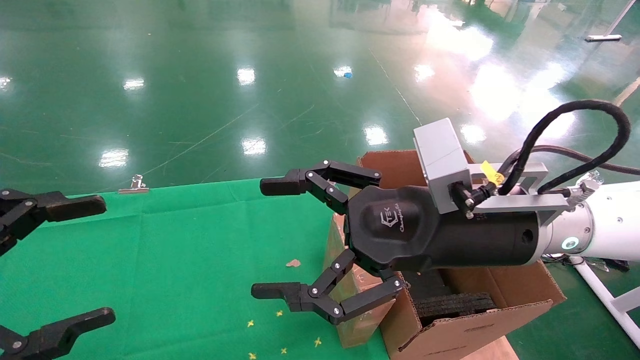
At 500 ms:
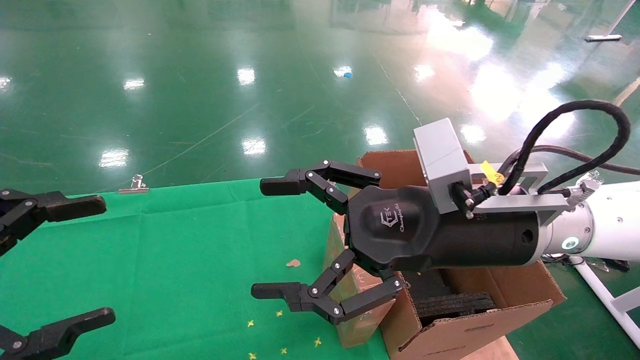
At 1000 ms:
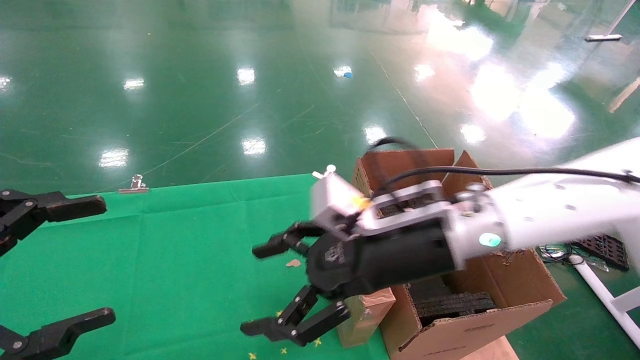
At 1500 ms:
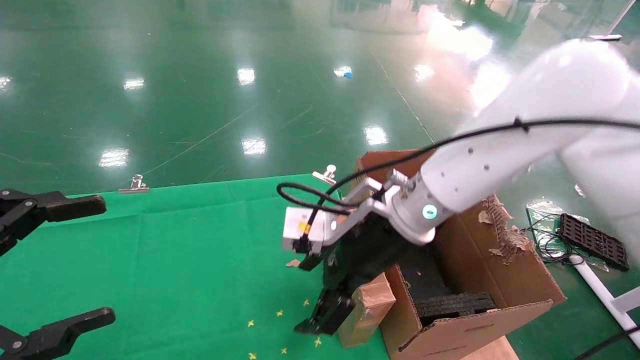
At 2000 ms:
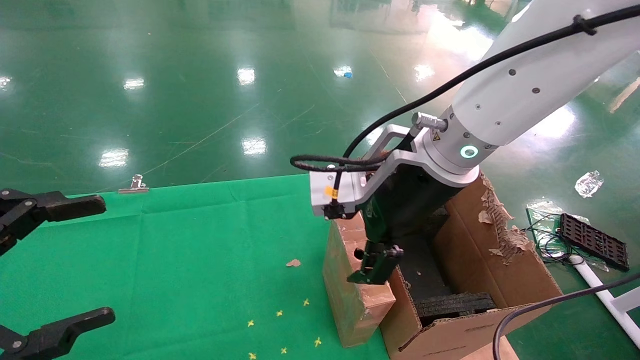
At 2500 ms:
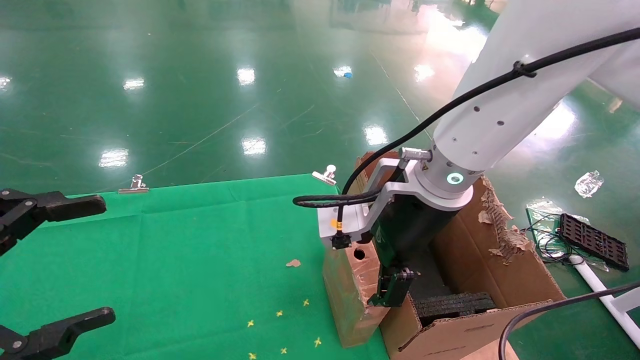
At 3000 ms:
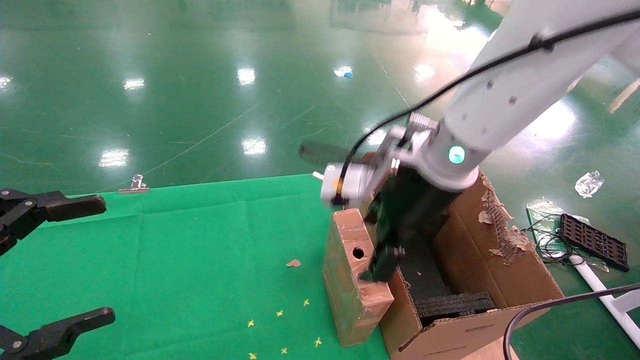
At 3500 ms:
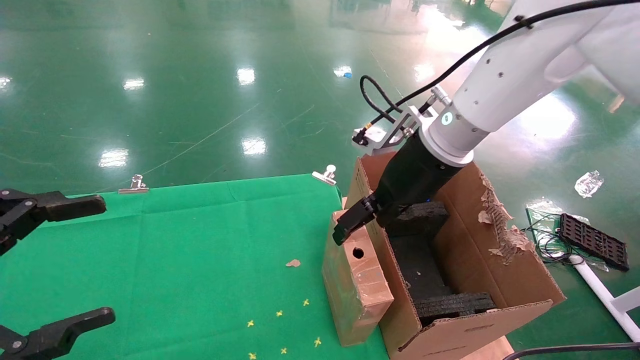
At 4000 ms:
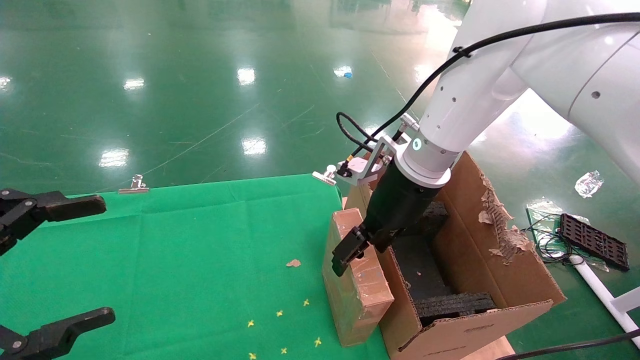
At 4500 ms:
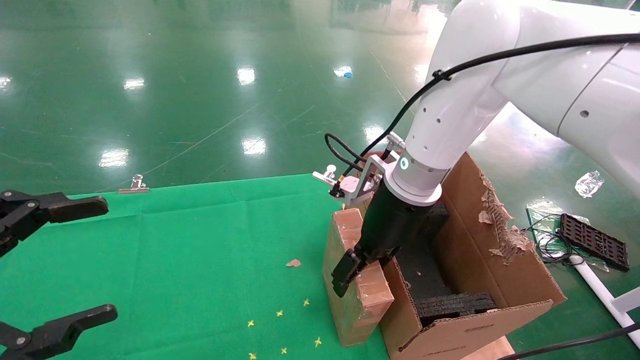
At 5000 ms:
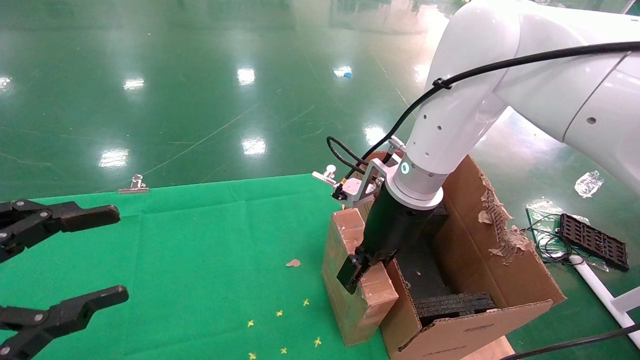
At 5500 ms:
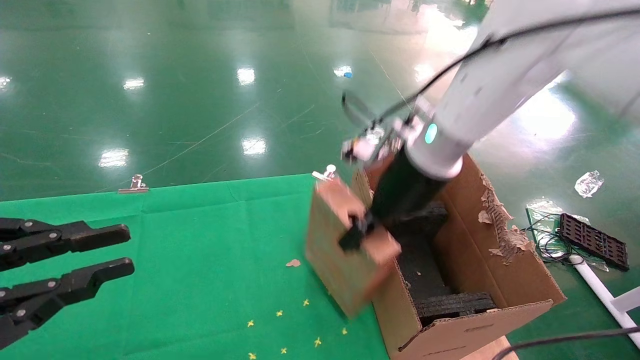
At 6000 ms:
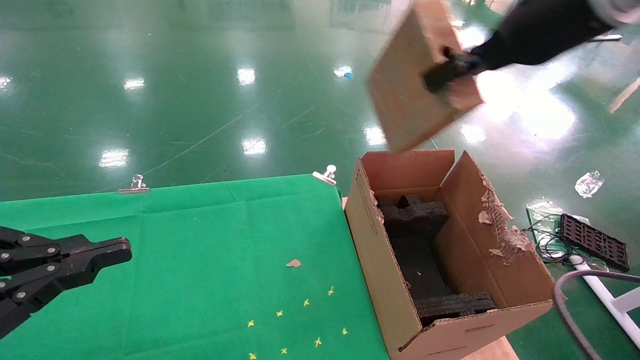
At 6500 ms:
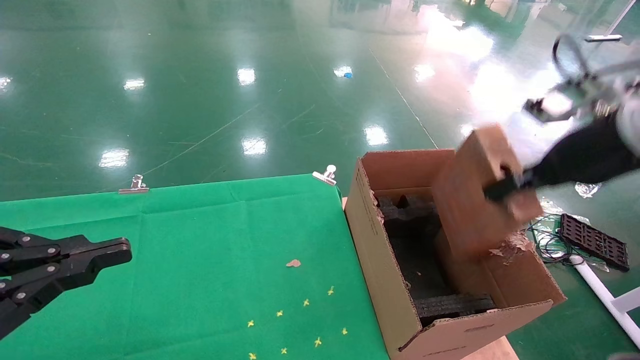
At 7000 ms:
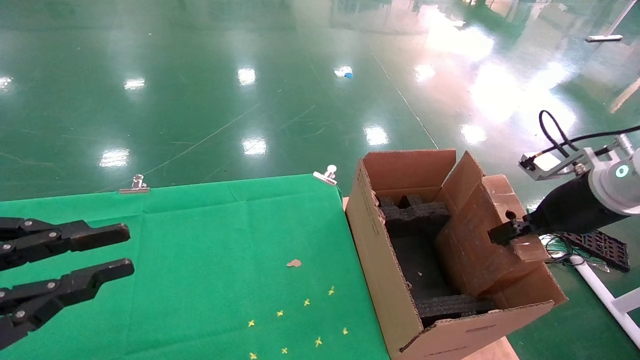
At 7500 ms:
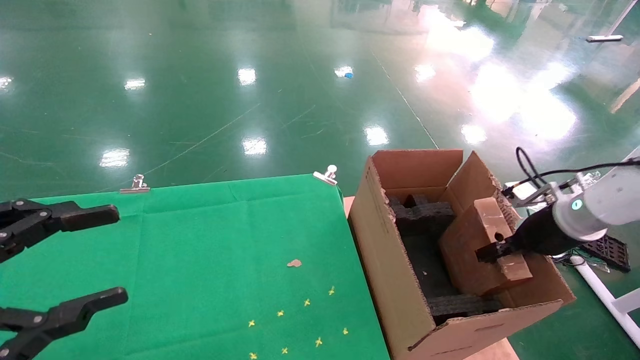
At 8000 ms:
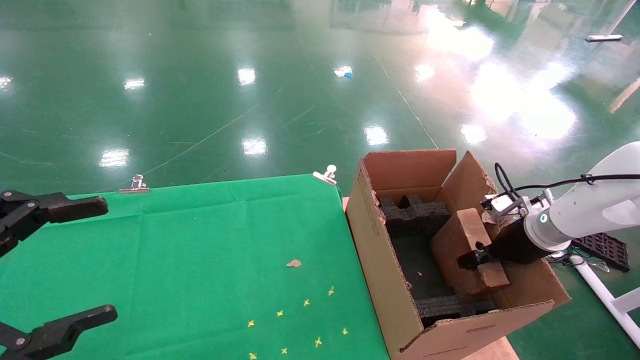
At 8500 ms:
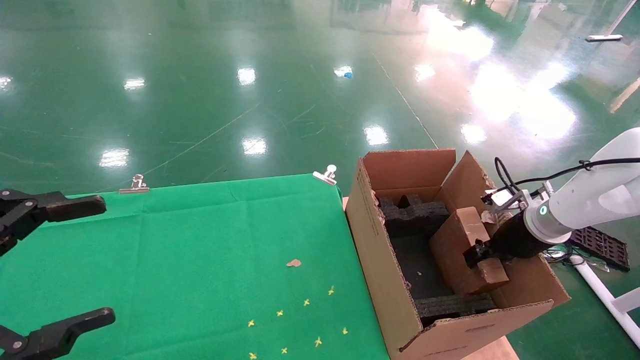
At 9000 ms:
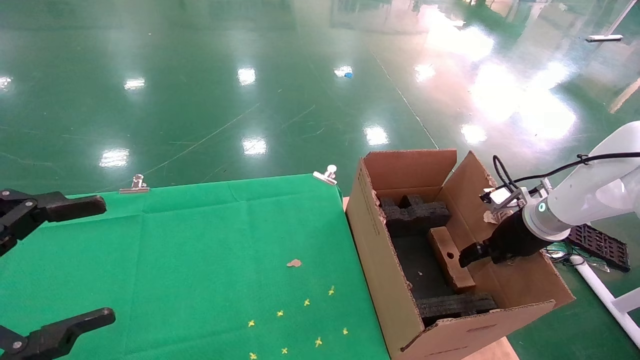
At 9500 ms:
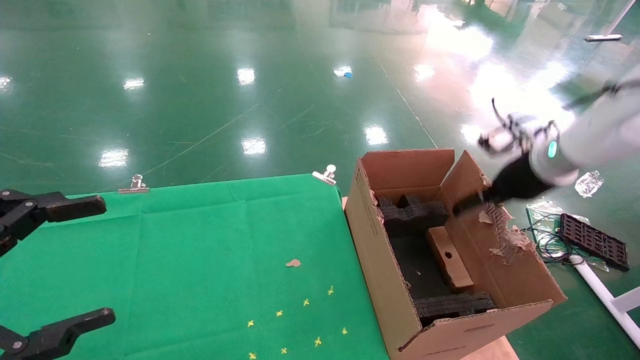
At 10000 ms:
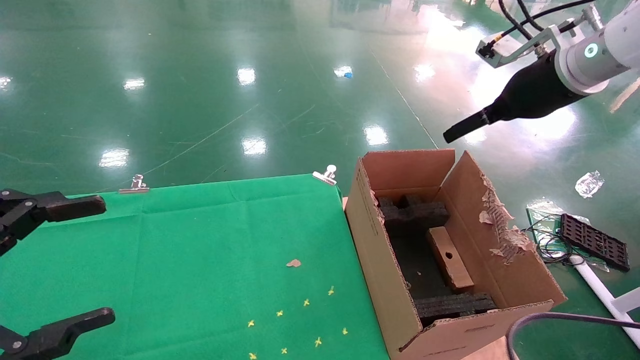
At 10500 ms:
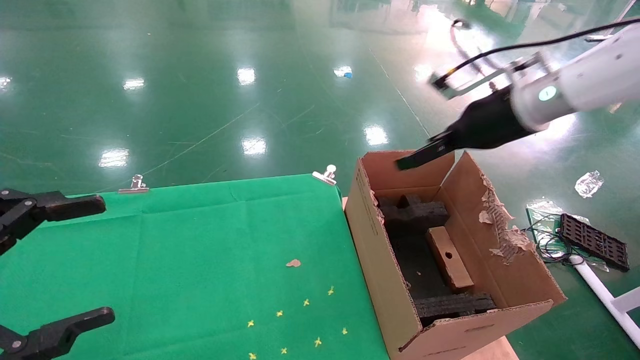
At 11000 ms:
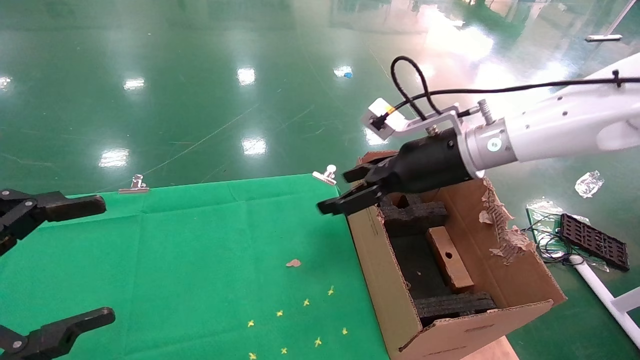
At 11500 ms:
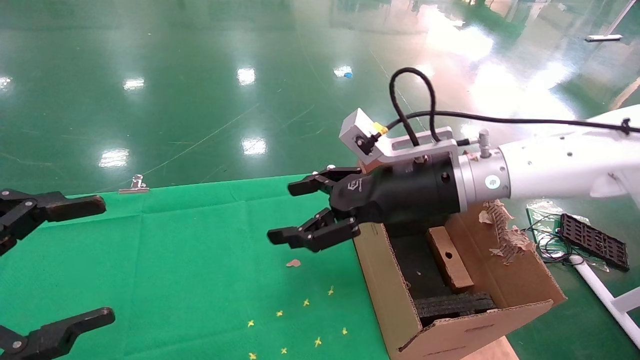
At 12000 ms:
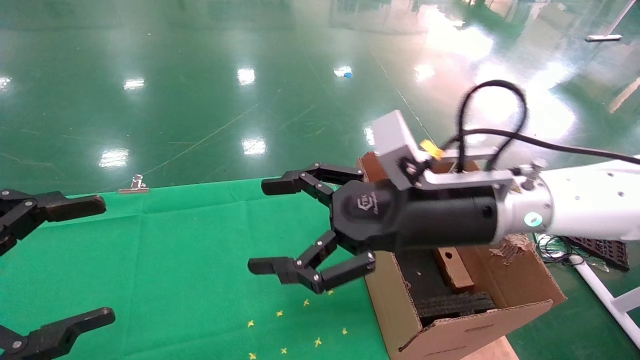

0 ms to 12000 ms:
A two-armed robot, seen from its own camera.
Task of the whole recording: using a robotic arm to pick up a cardboard box and palace it the carton.
Step, 1000 ms to 5000 ms: Pick up the mouse and the power cord paper box.
Step, 5500 ms to 8500 ms: Place the mouse and the power cord paper box into the container.
0 ms to 2000 ms: The right gripper is displaced forward by some 5 cm.
2000 ms to 4000 ms: The right gripper travels forward by some 5 cm.
4000 ms to 6000 ms: The left gripper closes its fingers; the right gripper is displaced upward, to the right and backward by roughly 20 cm, and closes up.
6000 ms to 8000 ms: The left gripper opens up. The right gripper travels downward and to the right by about 30 cm.
8000 ms to 10000 ms: The right gripper goes approximately 25 cm upward, and opens up.
10000 ms to 12000 ms: The right gripper moves to the left, downward and backward, approximately 25 cm.

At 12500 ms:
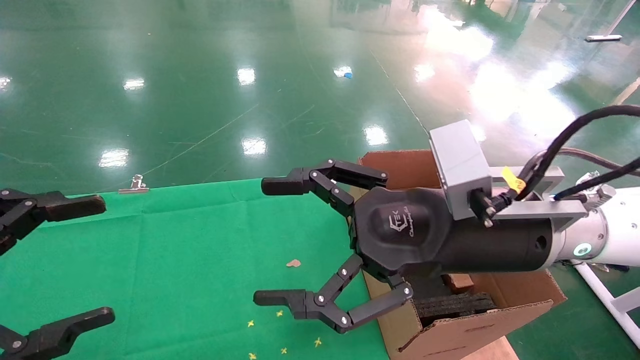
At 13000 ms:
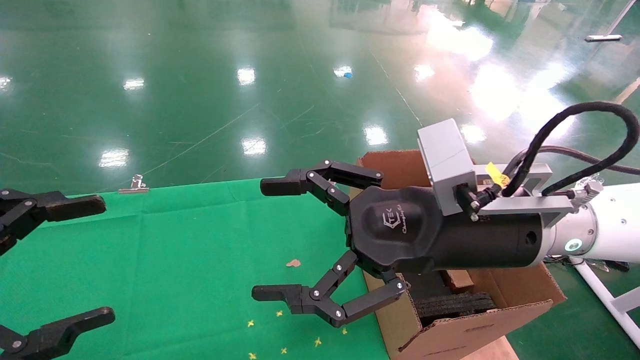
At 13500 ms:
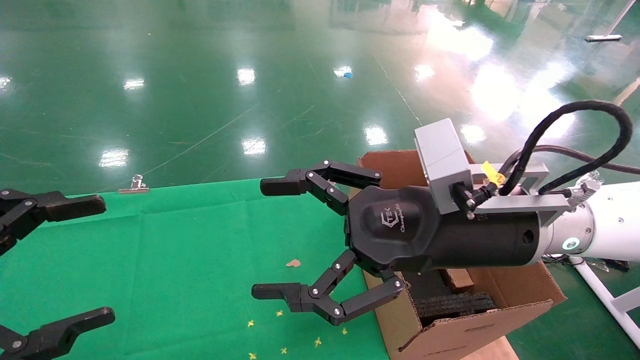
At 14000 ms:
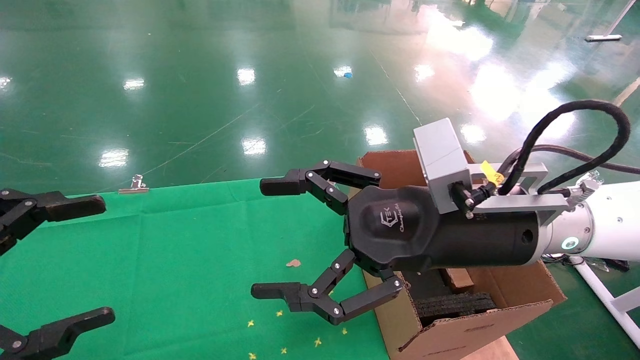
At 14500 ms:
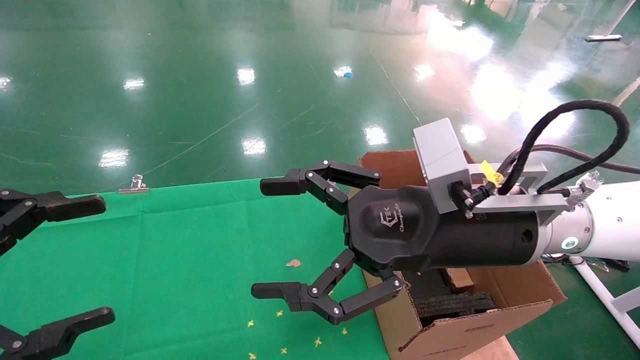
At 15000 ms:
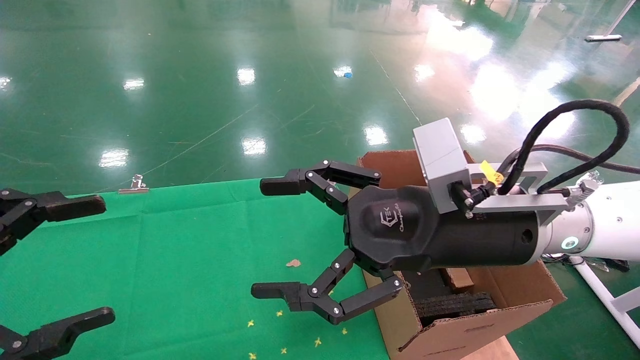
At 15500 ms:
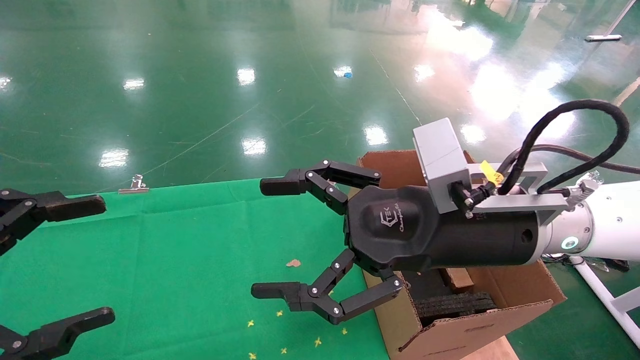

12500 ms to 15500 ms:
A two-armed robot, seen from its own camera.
Task of the whole recording: using a robotic arm to pick up a cardboard box and palace it the carton.
12500 ms to 15500 ms: Neither gripper changes place.

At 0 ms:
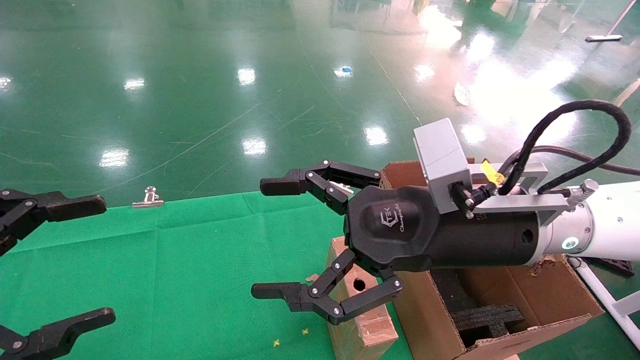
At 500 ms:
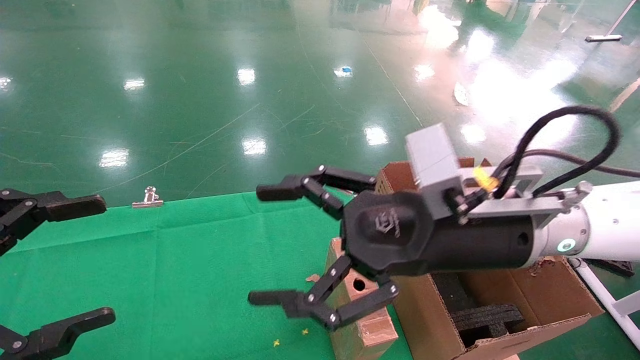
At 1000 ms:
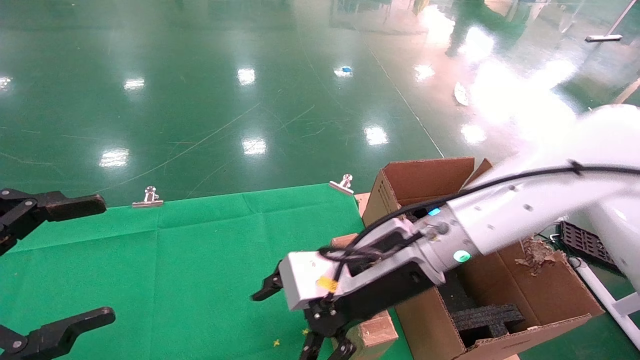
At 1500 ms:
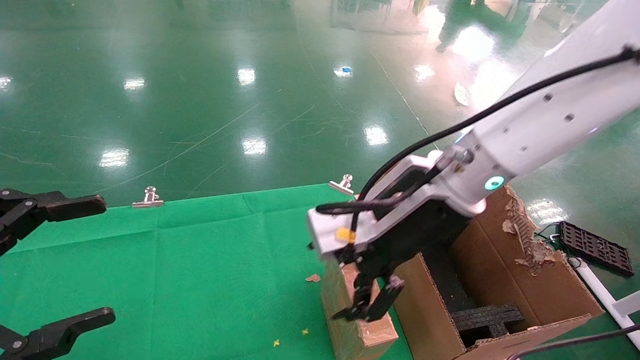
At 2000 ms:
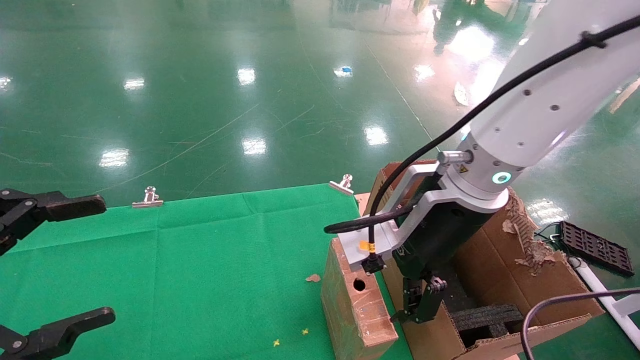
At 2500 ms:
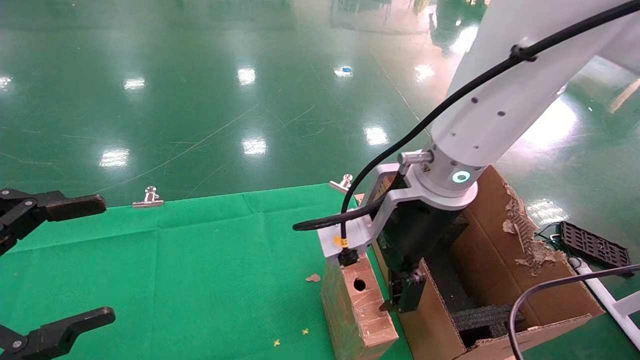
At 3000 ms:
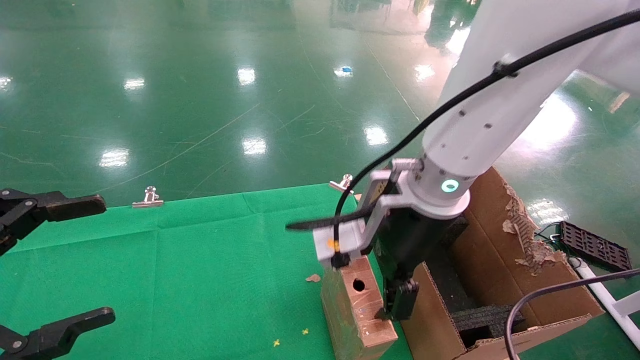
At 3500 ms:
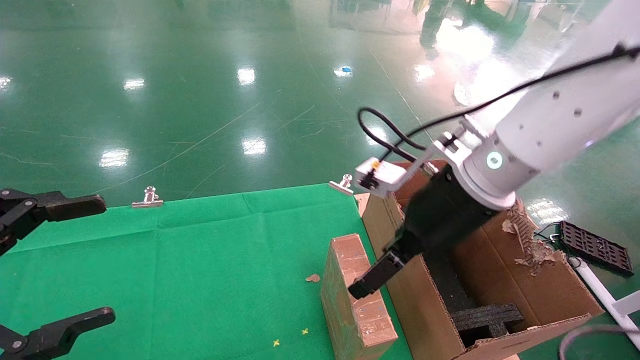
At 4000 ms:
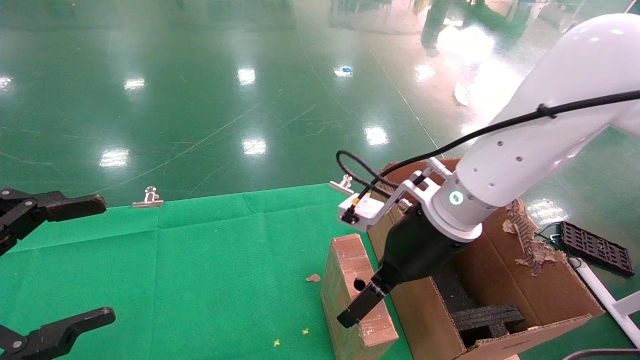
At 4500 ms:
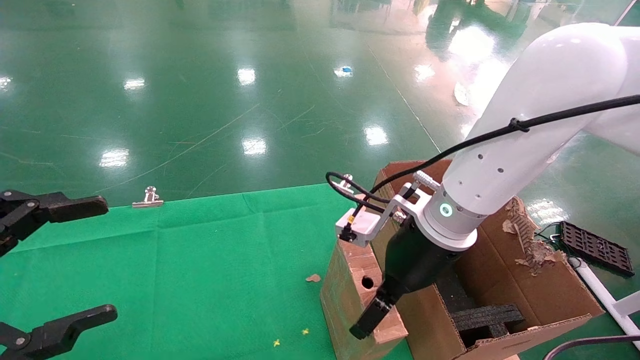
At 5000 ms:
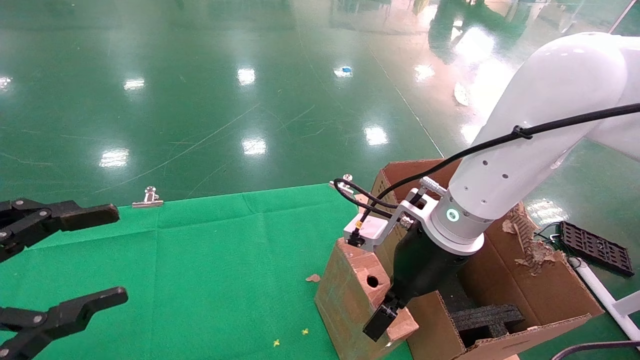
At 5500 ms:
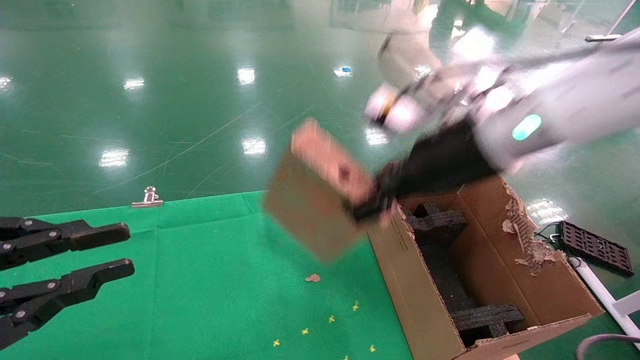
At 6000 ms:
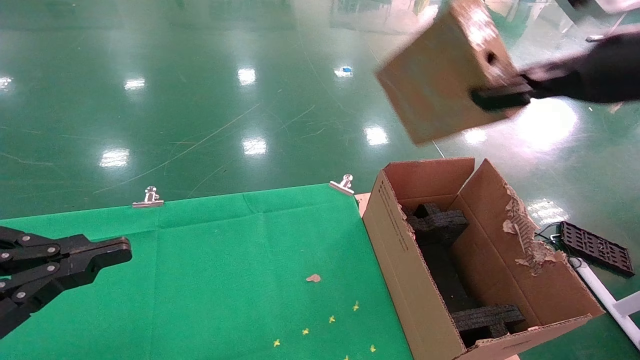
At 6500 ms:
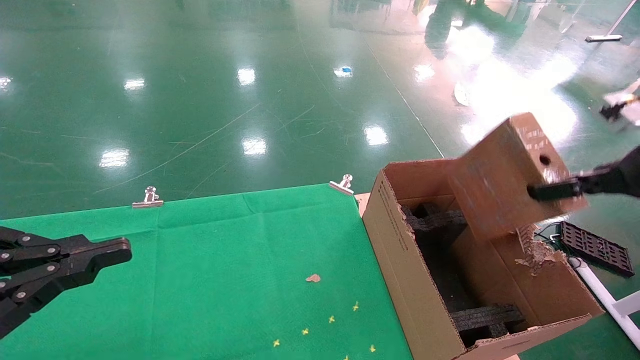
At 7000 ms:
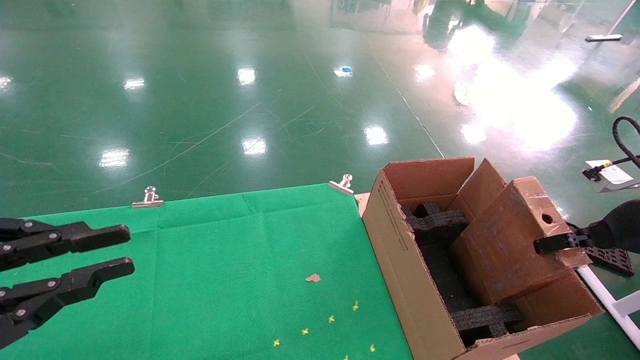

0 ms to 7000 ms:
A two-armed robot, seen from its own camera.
Task of the whole recording: using a robotic arm to pick up a cardboard box and palace it the carton.
Step, 1000 ms to 5000 ms: Pick up the mouse and the power cord paper box.
0 ms to 2000 ms: The right gripper shifts by approximately 5 cm.
3500 ms to 5000 ms: The right gripper travels downward by about 5 cm, and closes its fingers.
5000 ms to 7000 ms: The left gripper closes. The right gripper heads to the right, covering approximately 30 cm, and closes its fingers.
